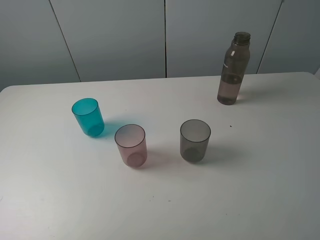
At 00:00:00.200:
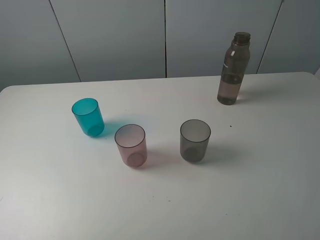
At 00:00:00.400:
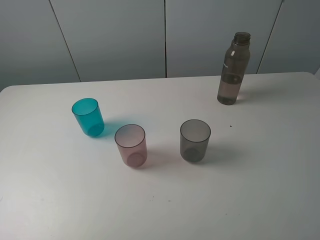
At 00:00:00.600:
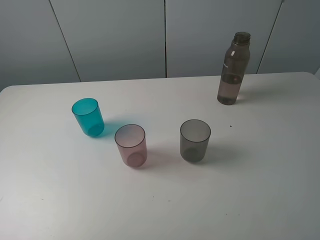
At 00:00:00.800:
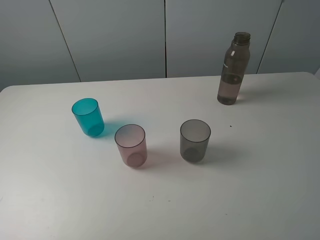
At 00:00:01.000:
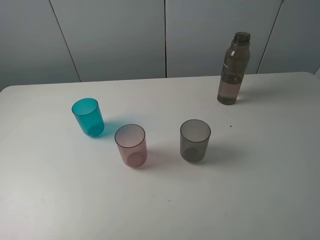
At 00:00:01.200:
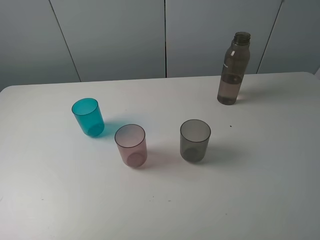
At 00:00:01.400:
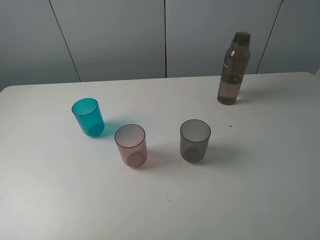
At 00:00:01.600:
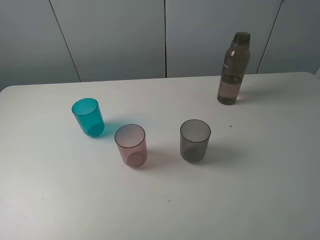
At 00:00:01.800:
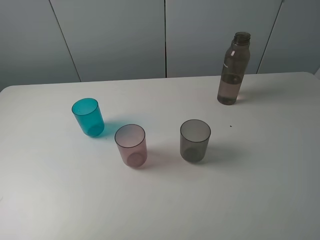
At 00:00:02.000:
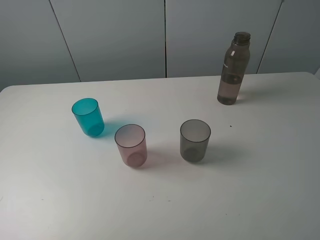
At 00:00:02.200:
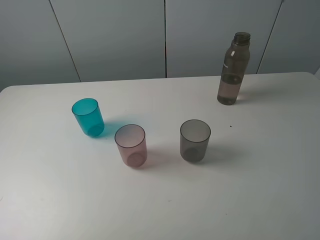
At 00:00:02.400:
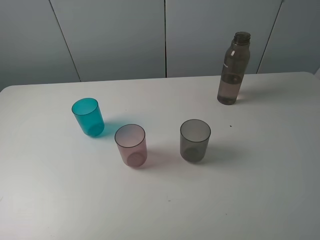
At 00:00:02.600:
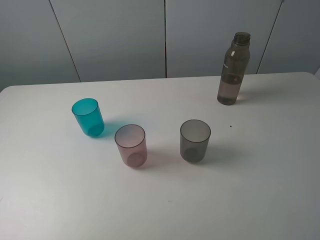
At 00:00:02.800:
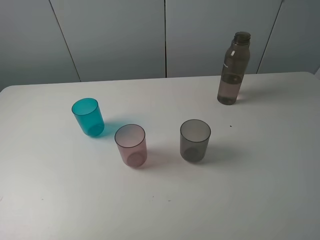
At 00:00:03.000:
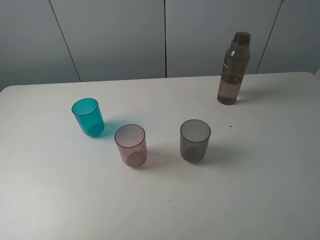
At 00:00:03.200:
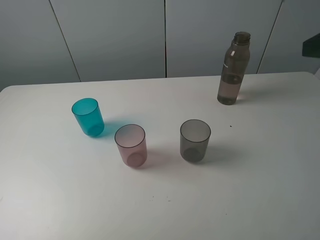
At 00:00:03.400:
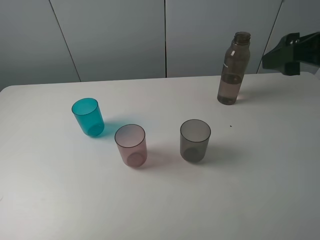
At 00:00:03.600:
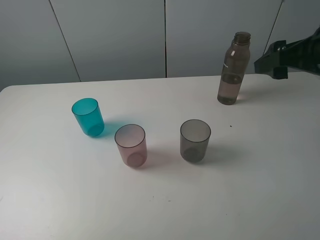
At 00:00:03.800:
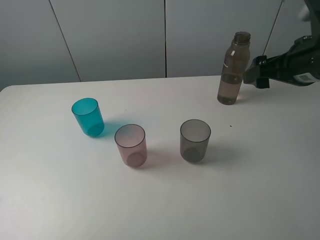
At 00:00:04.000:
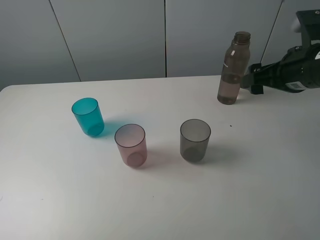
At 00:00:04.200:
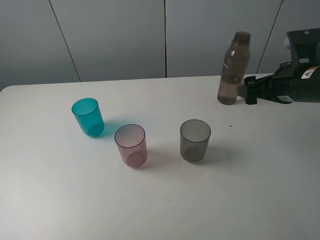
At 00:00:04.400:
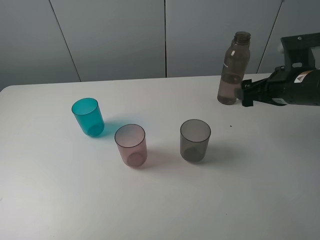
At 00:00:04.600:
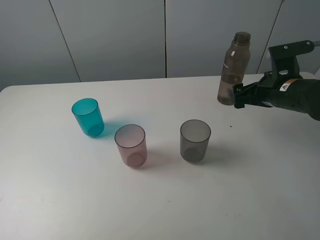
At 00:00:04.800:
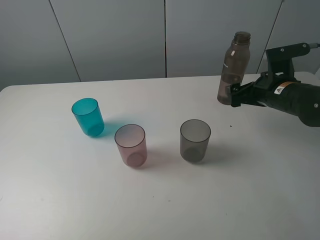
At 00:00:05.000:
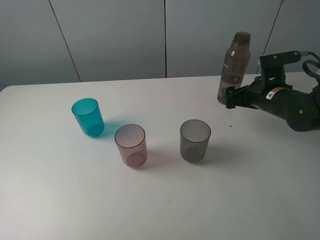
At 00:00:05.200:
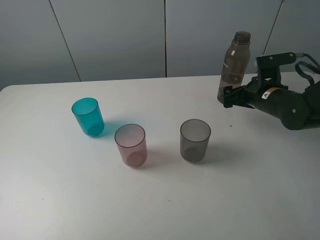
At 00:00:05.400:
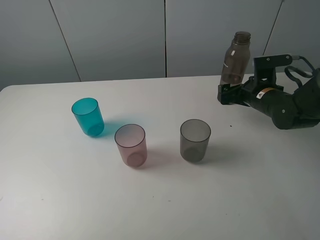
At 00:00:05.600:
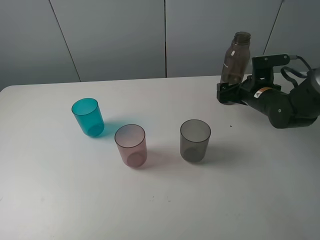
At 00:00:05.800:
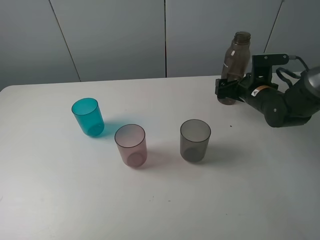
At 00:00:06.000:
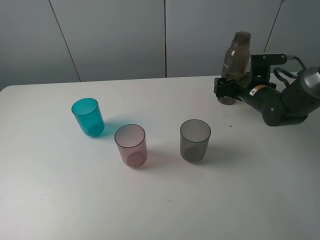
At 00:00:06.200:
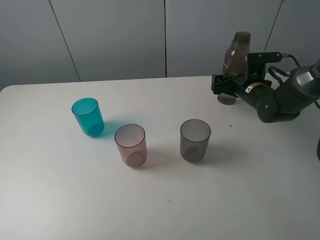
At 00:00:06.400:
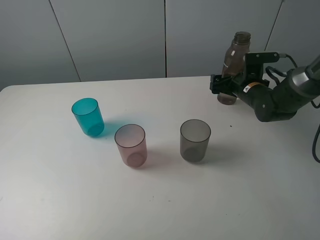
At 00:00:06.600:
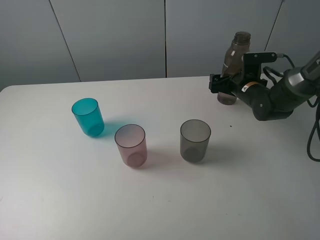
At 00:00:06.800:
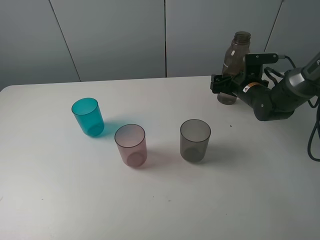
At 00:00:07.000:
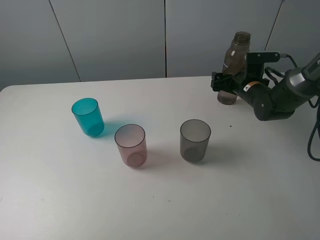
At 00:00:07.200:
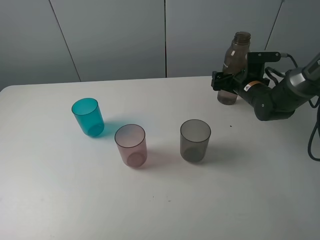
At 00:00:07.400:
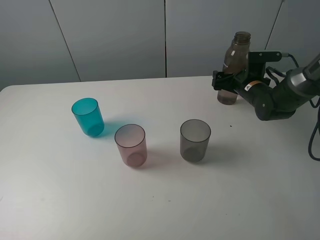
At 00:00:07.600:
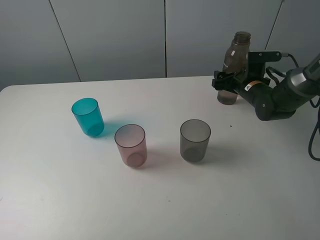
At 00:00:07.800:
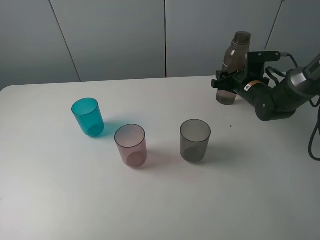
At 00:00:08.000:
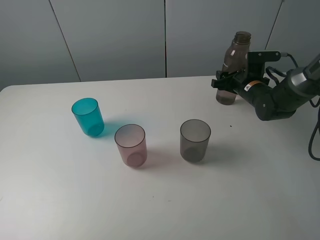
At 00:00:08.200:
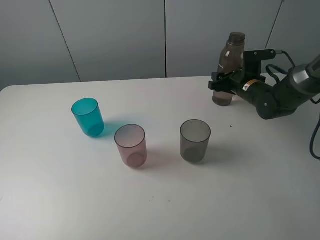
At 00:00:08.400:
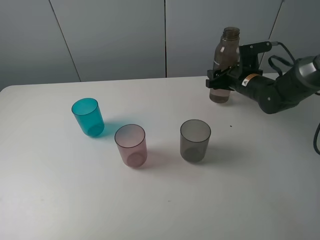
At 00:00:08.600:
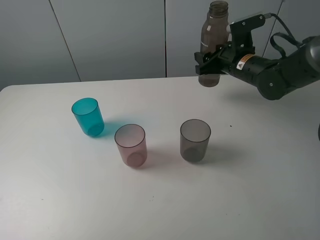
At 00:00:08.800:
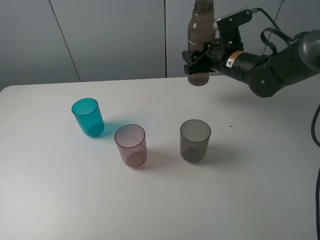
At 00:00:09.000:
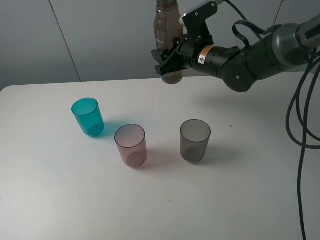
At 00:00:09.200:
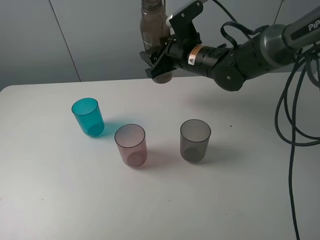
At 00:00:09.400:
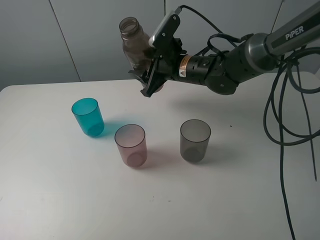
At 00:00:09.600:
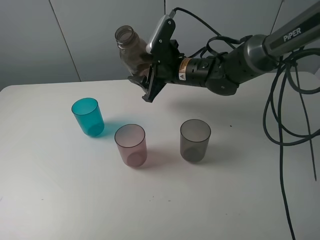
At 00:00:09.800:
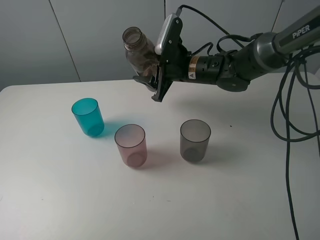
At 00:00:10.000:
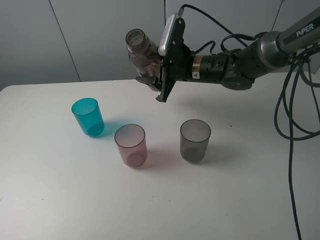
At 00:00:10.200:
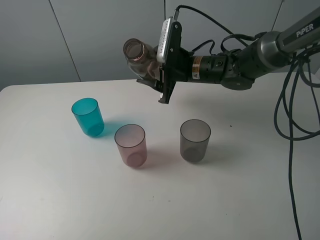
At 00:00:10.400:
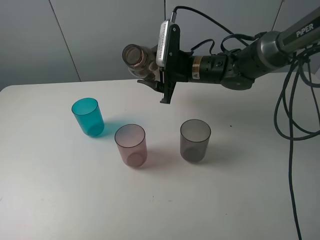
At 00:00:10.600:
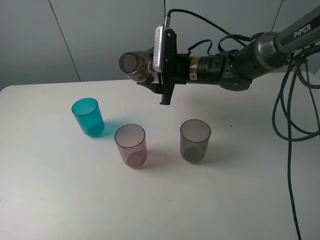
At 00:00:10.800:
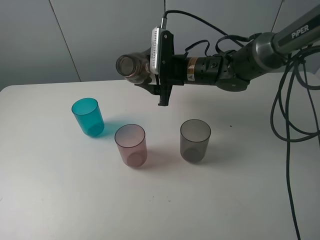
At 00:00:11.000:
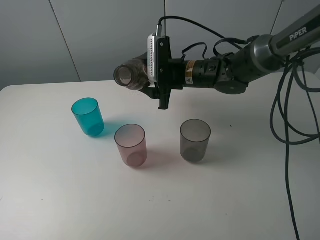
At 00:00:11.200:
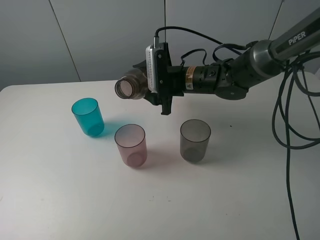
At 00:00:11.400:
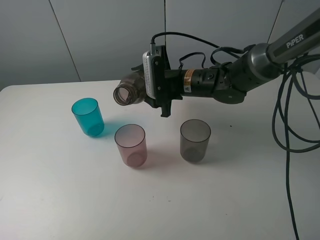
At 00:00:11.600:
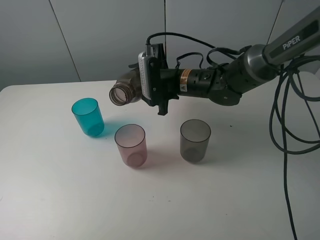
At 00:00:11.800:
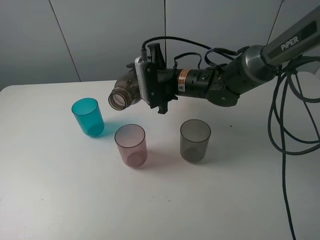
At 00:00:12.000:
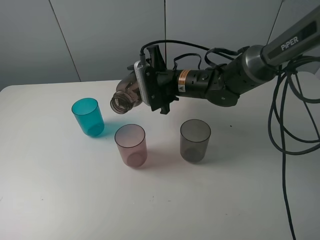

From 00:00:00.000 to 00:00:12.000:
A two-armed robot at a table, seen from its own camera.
Task of the whole recording: pick up the bottle filled with water and pour water into the middle cup of the three cups.
Step, from 00:00:00.000 to 00:00:08.000: Grasp the brown bottle with the right gripper.
From 00:00:00.000 to 00:00:01.600: Neither gripper changes place.
From 00:00:03.000 to 00:00:04.400: The right gripper moves downward and forward, roughly 20 cm.
From 00:00:04.400 to 00:00:06.000: The right gripper shifts approximately 15 cm forward and downward.
From 00:00:06.000 to 00:00:07.600: The right gripper closes up.
From 00:00:07.600 to 00:00:09.000: The right gripper shifts approximately 20 cm to the left and upward.

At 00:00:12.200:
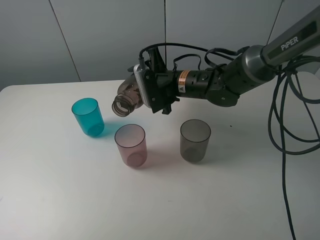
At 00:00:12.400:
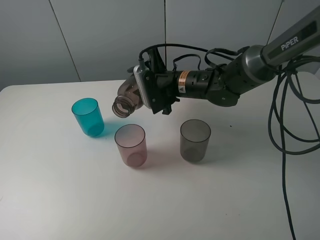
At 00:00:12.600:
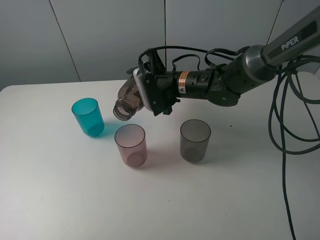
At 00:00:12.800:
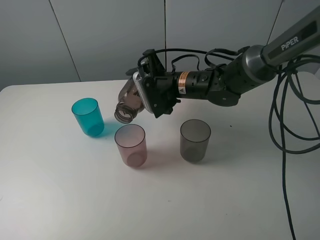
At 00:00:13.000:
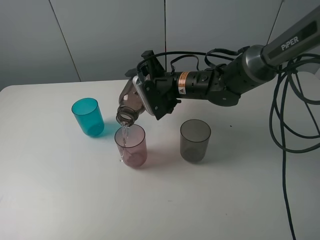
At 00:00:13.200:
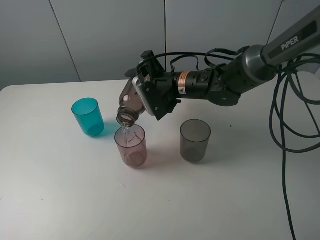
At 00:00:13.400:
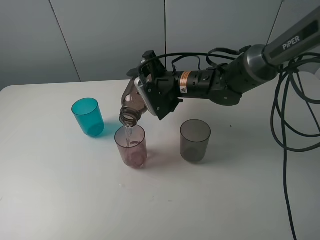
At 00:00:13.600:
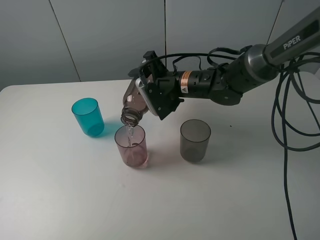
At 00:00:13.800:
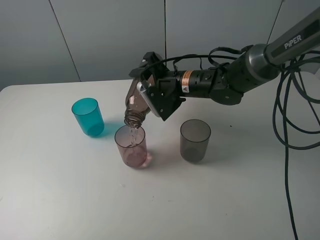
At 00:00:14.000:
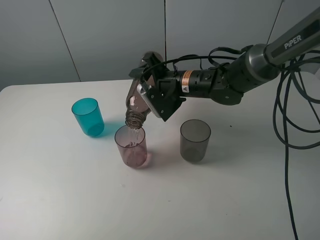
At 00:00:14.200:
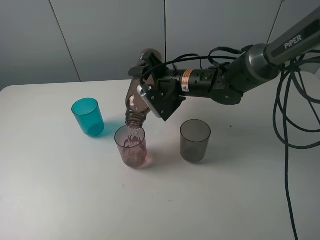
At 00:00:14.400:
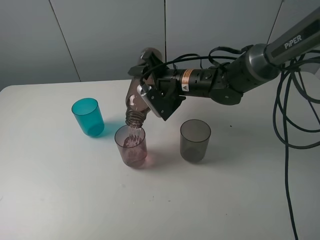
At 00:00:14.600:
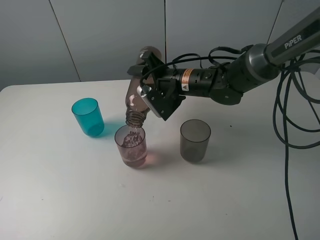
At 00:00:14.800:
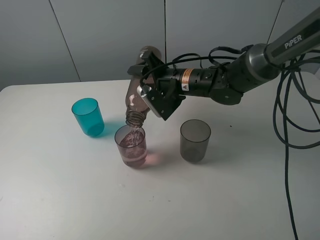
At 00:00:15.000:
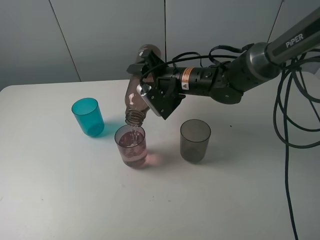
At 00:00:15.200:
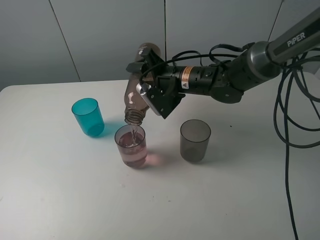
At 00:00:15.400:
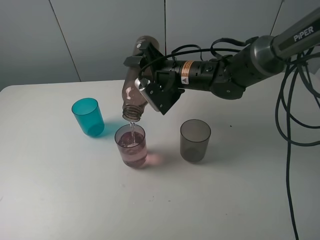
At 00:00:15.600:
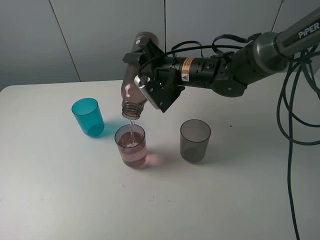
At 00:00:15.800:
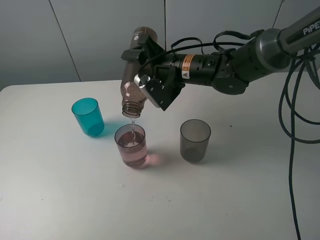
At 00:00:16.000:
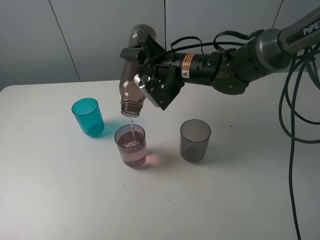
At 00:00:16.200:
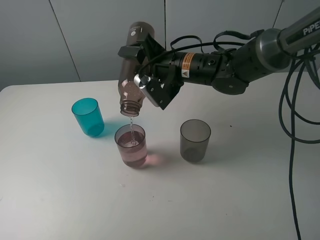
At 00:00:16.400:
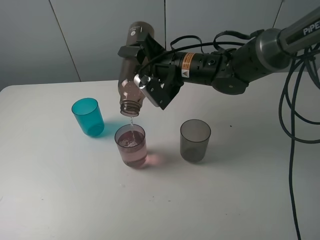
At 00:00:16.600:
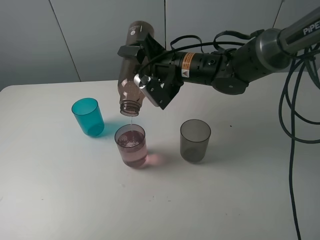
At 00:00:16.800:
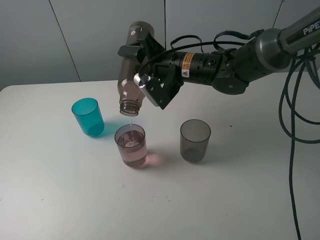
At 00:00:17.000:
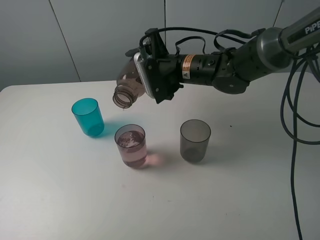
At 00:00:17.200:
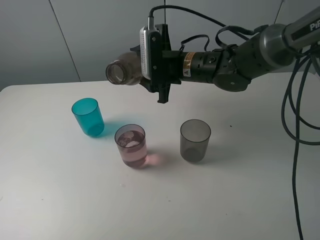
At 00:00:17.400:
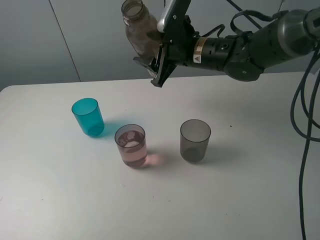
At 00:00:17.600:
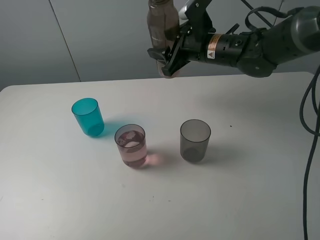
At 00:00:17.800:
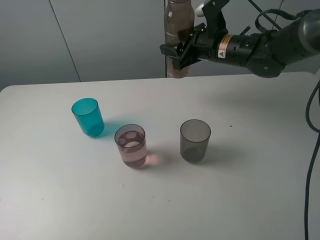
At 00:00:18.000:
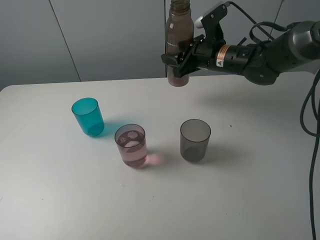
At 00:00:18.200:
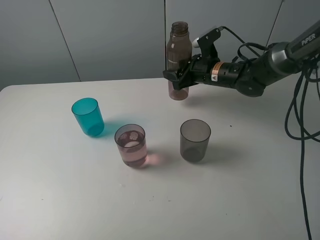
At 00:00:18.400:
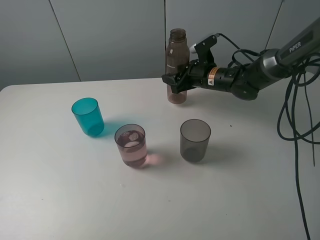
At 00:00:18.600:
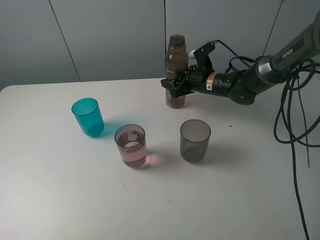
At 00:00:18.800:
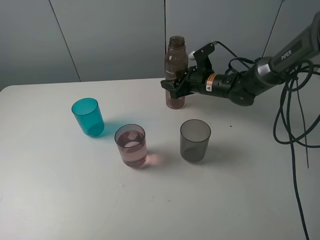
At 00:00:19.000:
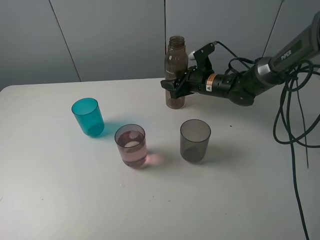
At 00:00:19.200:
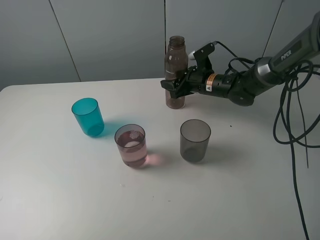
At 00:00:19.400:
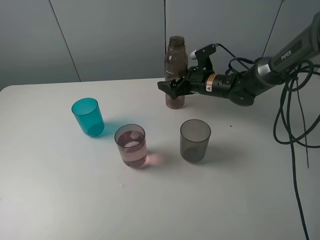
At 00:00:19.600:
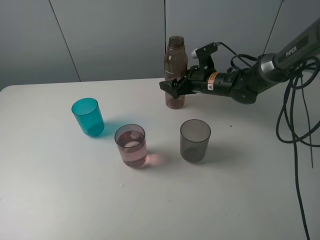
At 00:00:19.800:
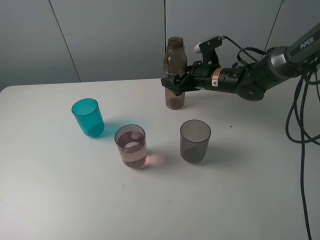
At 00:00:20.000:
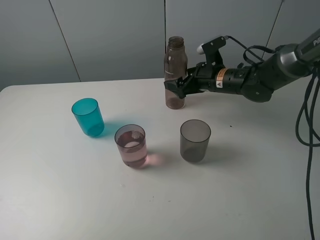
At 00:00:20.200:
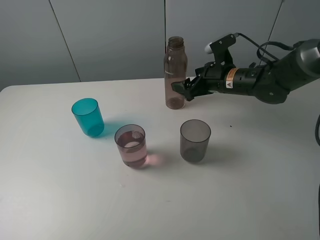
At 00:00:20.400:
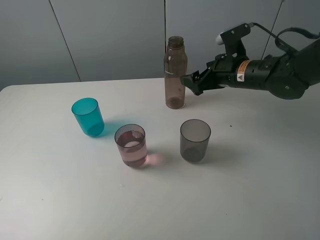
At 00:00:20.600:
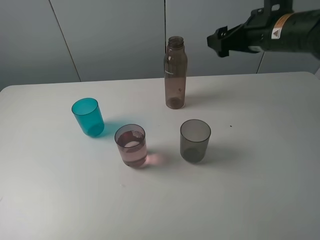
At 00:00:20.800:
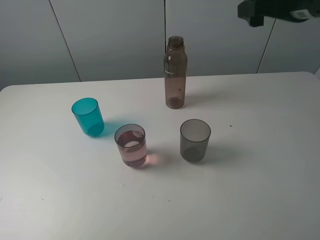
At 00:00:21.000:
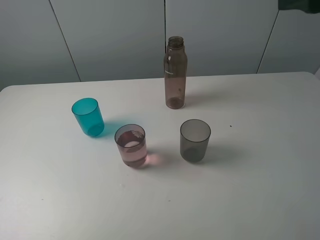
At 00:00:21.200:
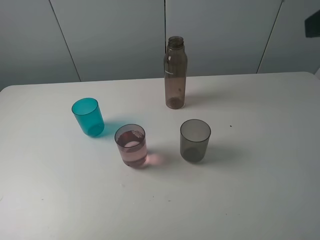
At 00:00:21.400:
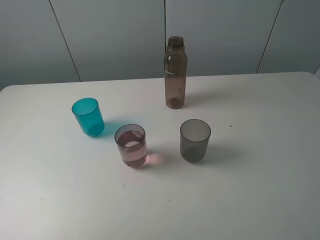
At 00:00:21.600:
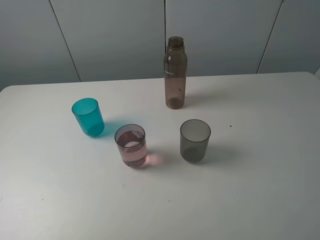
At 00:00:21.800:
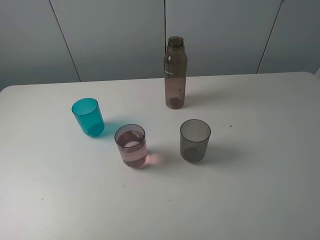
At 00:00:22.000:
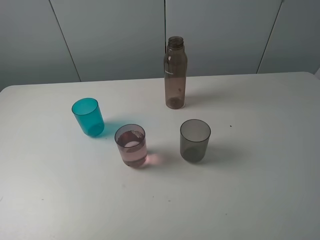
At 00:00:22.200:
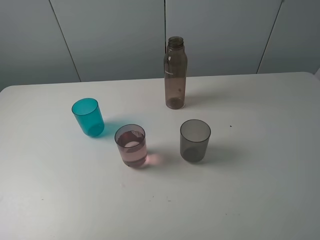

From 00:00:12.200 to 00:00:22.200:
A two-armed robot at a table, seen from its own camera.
Task of the whole recording: pick up the bottle filled with water and pour water into the middle cup of the three cups.
Step, from 00:00:12.600 to 00:00:19.800: Place the brown bottle with the right gripper.
From 00:00:12.200 to 00:00:13.600: The grippers make only small movements.
From 00:00:13.600 to 00:00:15.000: The grippers stay close to where they were, moving slightly.
From 00:00:15.000 to 00:00:16.400: The grippers stay close to where they were, moving slightly.
From 00:00:16.400 to 00:00:18.000: The right gripper goes approximately 10 cm to the right and forward.
From 00:00:18.000 to 00:00:19.400: The right gripper moves downward, some 10 cm, and opens.
From 00:00:19.400 to 00:00:20.800: The right gripper shifts roughly 30 cm upward and backward.
From 00:00:20.800 to 00:00:22.200: The right gripper heads backward, covering approximately 30 cm.
